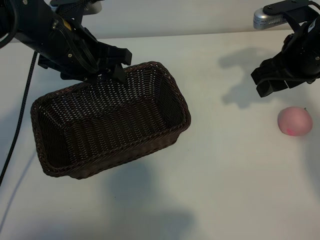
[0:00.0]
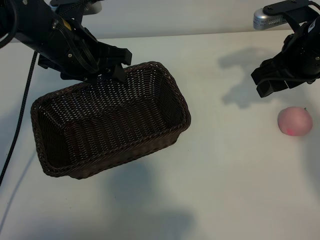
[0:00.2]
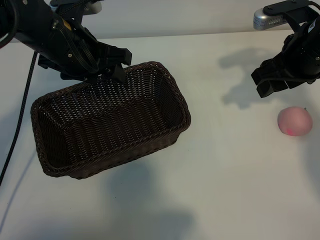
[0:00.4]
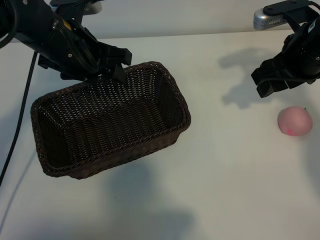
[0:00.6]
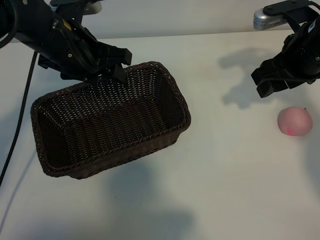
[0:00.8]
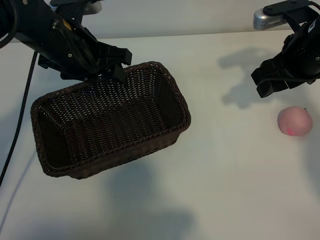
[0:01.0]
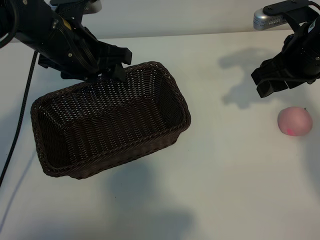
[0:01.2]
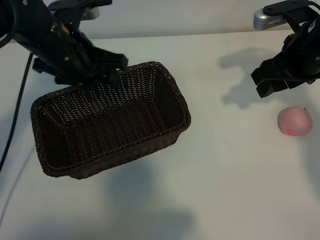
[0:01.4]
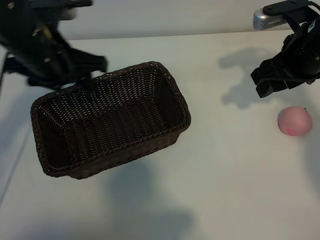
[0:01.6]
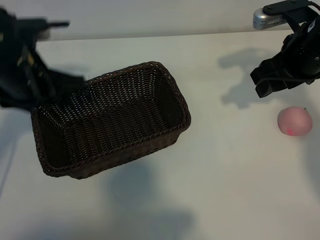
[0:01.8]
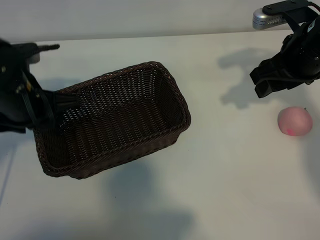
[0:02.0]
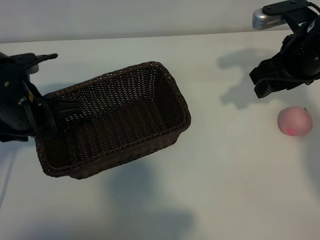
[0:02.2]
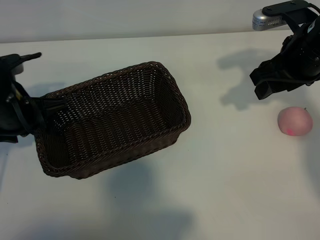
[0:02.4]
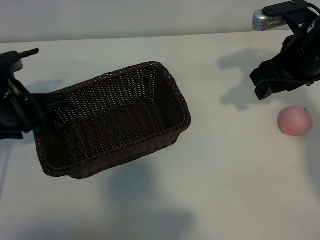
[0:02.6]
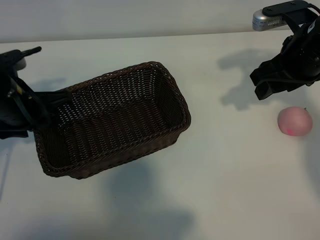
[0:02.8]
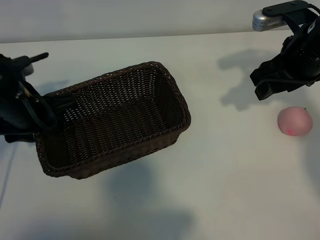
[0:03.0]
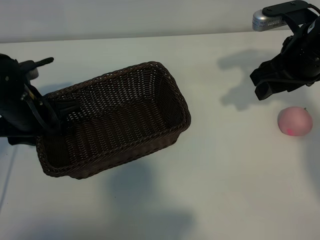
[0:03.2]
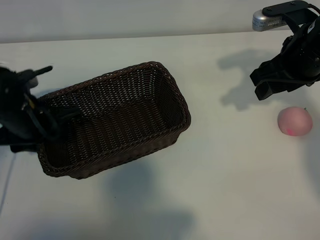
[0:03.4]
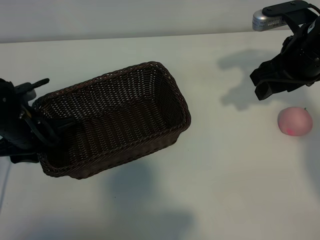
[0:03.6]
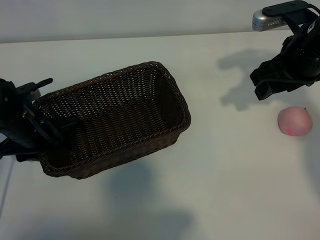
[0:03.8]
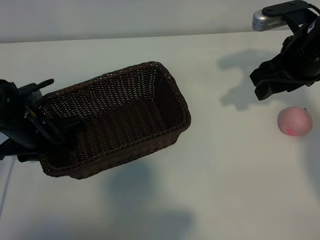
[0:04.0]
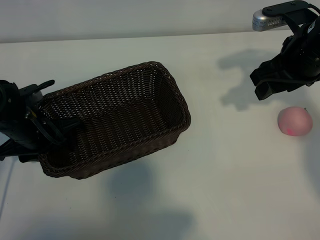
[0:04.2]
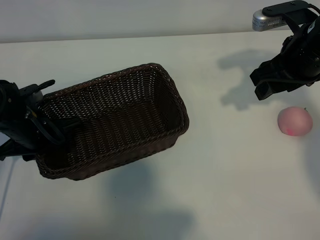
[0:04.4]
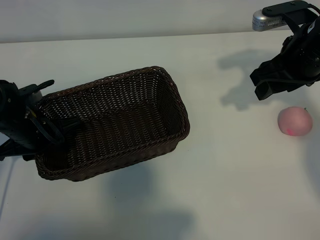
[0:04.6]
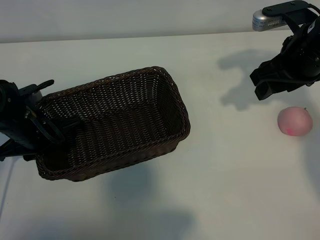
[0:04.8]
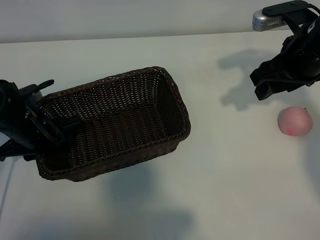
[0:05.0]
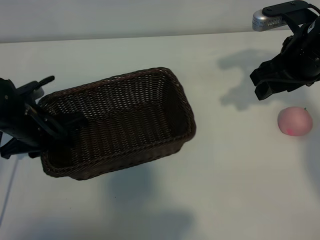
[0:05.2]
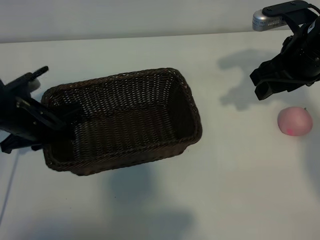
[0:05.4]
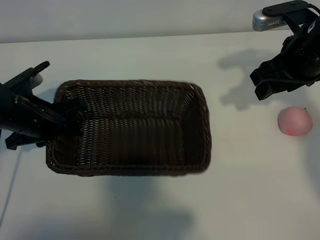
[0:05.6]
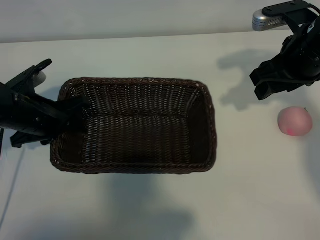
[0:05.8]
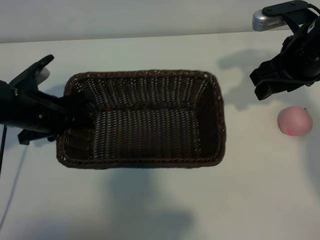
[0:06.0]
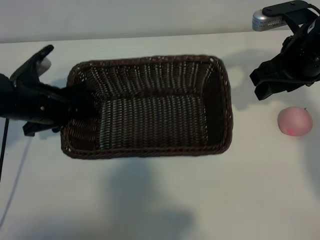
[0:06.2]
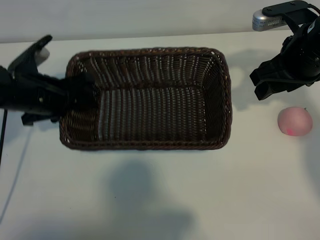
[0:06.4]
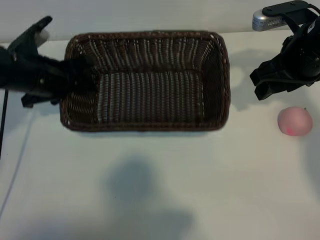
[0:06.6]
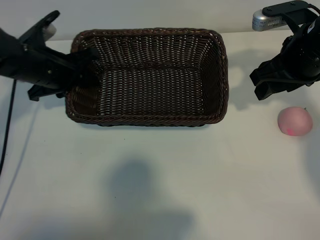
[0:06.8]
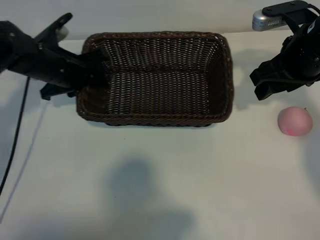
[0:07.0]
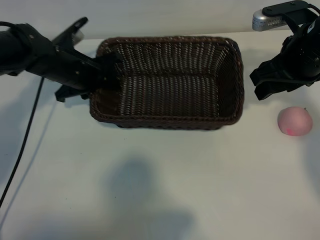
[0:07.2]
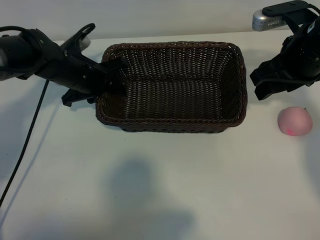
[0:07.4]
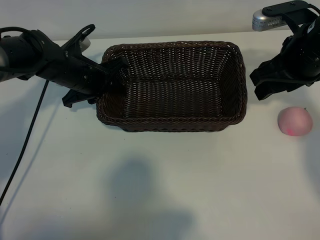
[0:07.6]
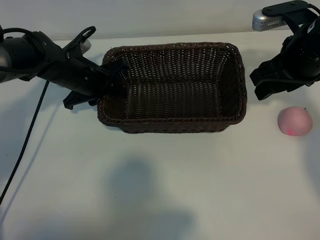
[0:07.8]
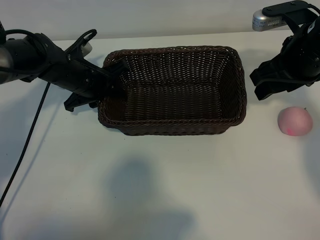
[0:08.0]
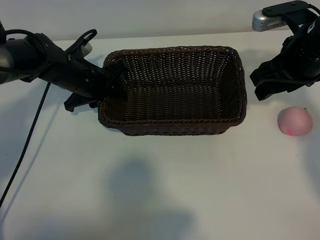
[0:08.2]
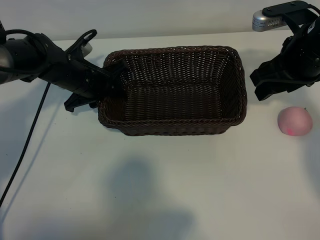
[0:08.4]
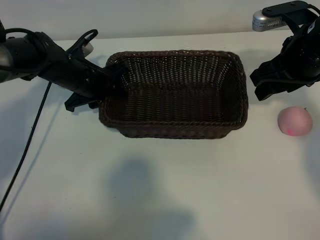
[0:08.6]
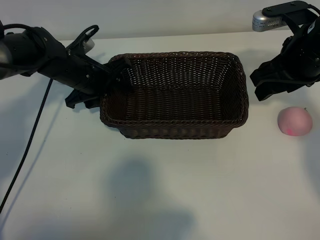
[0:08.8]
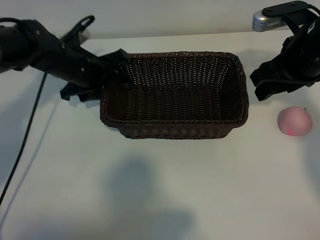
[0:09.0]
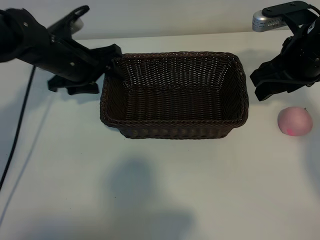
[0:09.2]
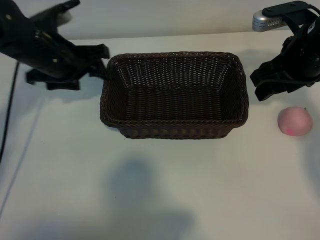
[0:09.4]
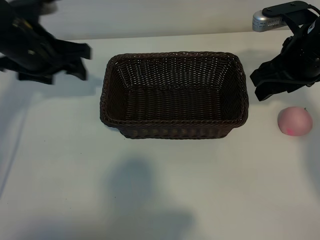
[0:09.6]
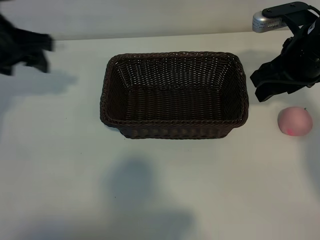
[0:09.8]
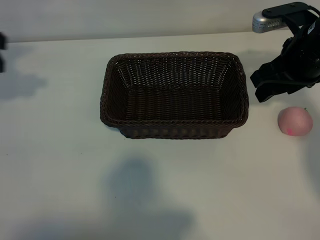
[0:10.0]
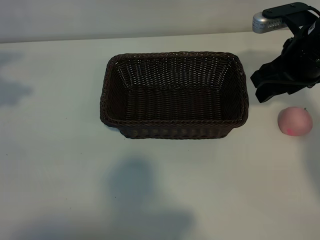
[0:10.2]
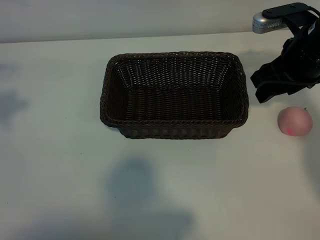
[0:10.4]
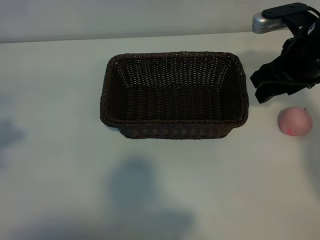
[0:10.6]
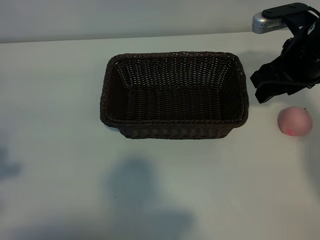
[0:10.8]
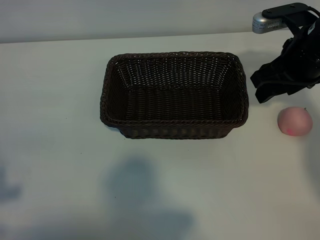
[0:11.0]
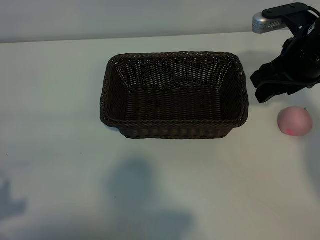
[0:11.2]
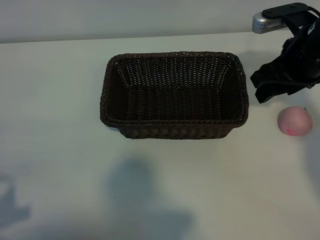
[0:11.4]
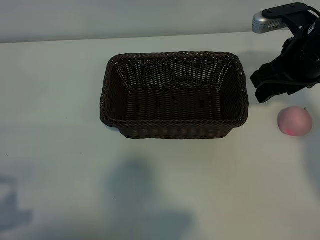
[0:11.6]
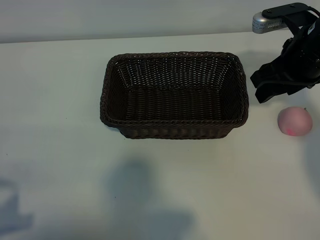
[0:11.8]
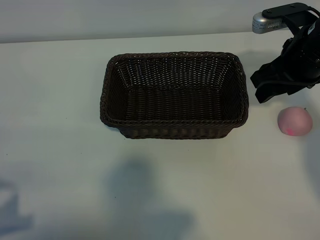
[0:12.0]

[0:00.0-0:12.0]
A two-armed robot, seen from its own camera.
Task of the whole recording: pick up the peach and put it into the basket.
Step, 0:01.2 to 0:04.4: Grasp the basket with left gripper.
Step, 0:04.6 to 0:09.2: Place the basket in the center of view with left gripper.

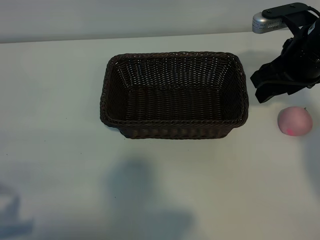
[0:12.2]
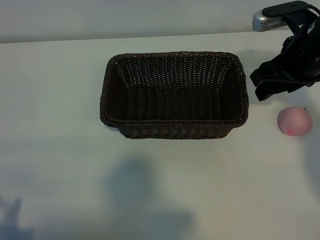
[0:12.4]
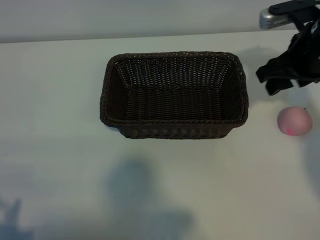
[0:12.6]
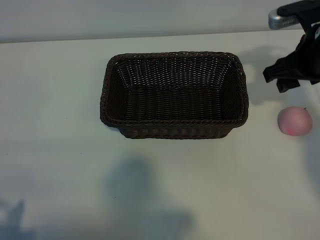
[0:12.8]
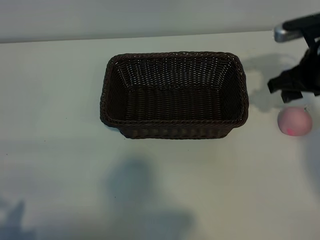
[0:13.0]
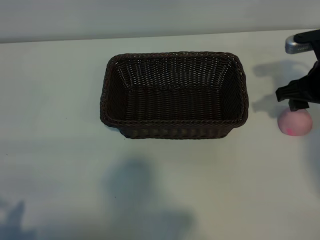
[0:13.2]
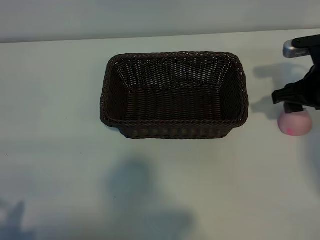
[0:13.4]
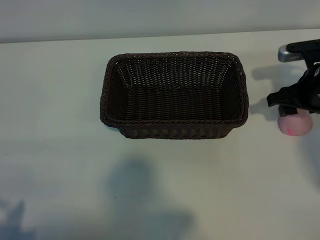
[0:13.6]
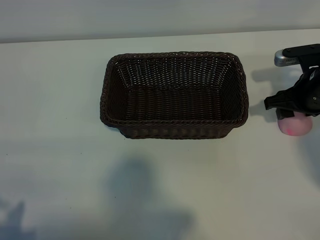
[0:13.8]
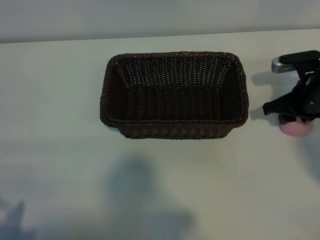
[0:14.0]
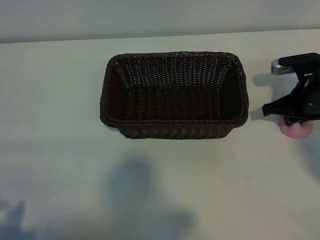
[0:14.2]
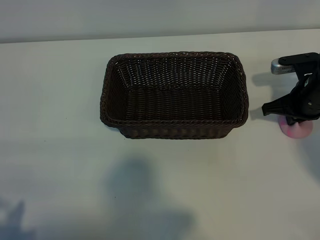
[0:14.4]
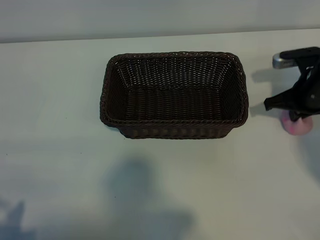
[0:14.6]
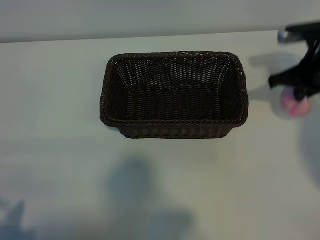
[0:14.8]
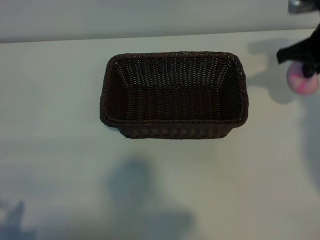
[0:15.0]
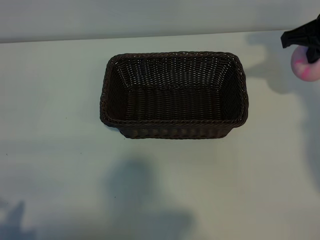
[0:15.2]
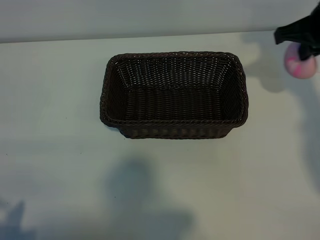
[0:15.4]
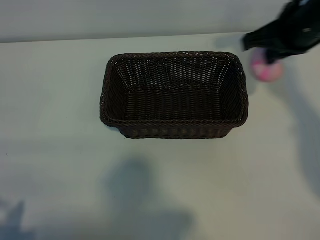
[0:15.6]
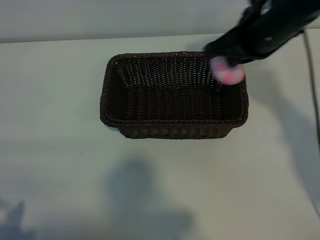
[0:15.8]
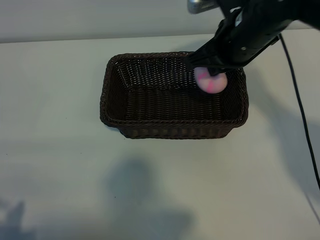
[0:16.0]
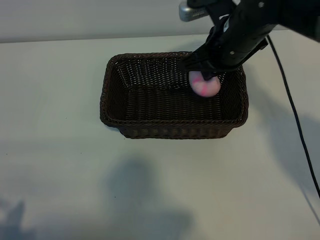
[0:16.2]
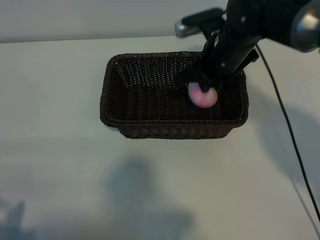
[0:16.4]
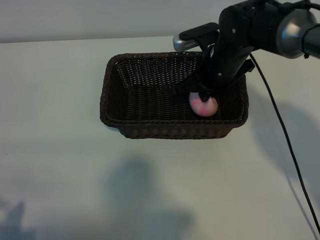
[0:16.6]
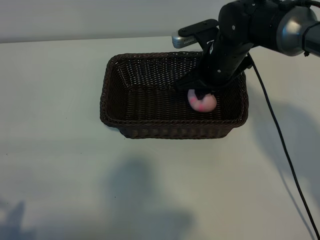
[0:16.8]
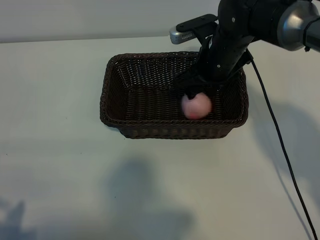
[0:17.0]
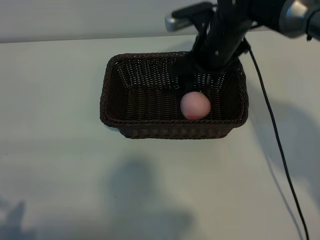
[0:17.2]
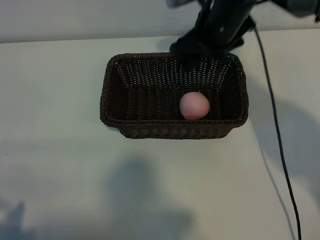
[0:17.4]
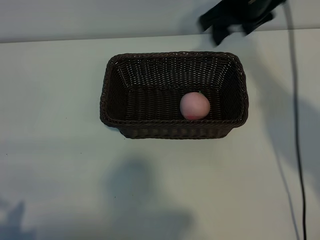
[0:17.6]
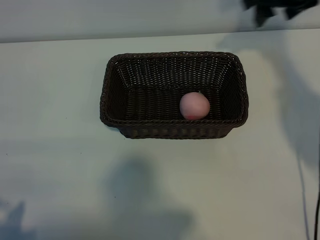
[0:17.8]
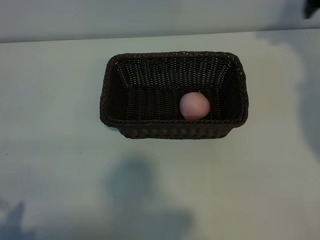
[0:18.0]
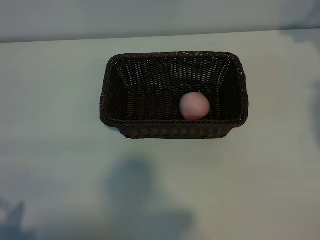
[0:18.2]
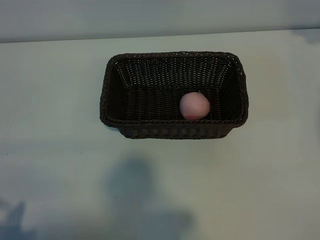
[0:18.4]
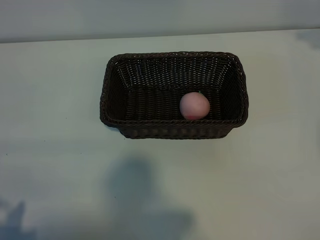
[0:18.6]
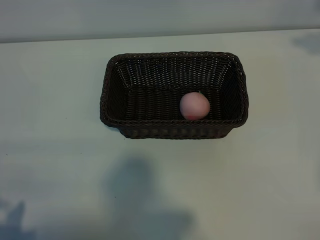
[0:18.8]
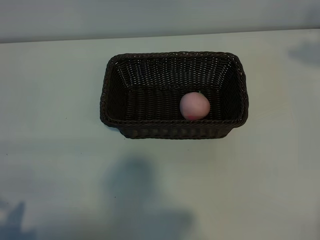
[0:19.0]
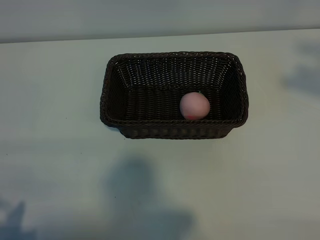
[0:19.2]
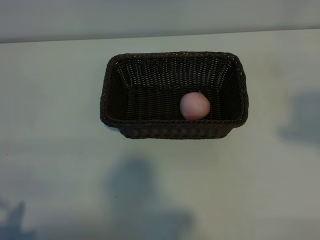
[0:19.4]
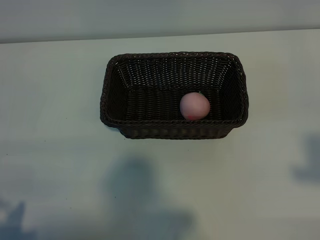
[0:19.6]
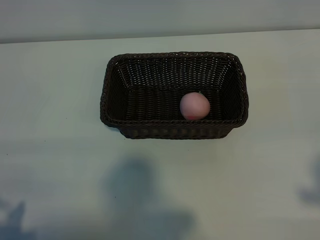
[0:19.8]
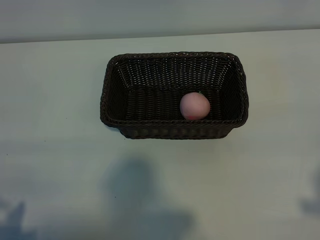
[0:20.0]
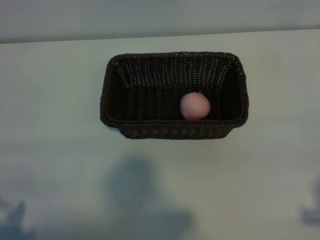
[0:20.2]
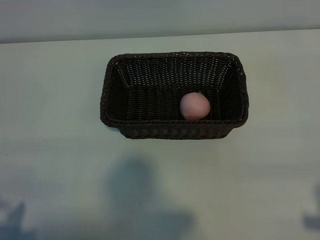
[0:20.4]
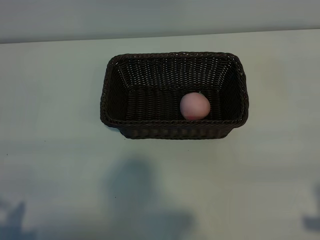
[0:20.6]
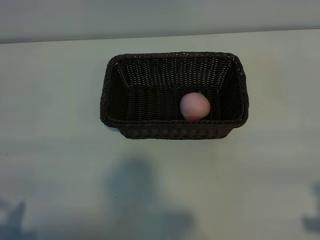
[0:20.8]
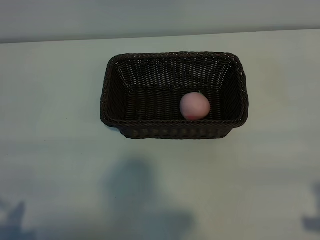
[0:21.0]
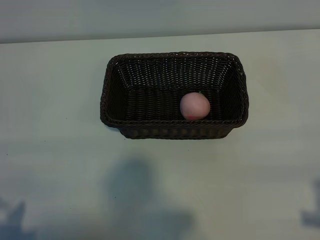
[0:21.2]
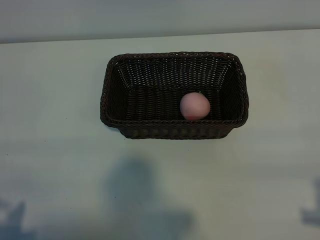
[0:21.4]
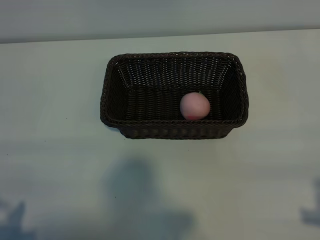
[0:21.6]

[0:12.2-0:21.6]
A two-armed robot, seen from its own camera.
Task of the whole recording: pick up the peach and put it into the basket.
Step, 0:12.2 to 0:14.2: Grasp the peach with right gripper.
Step, 0:14.4 to 0:17.0: Place the peach in the basket with right gripper.
